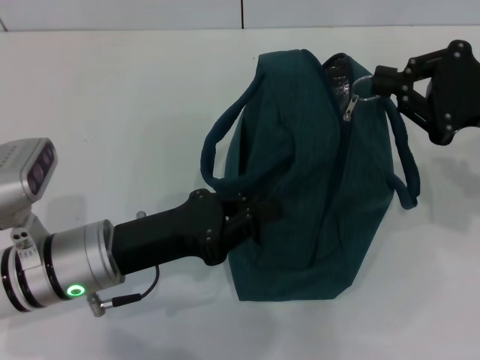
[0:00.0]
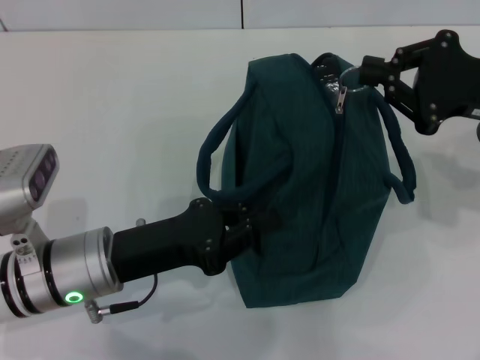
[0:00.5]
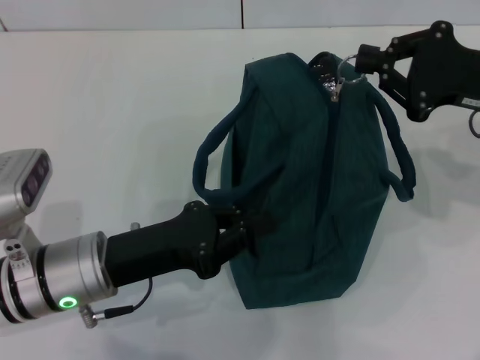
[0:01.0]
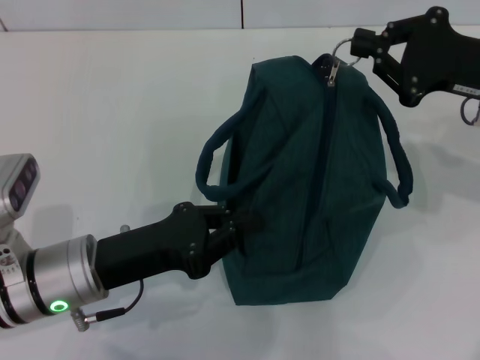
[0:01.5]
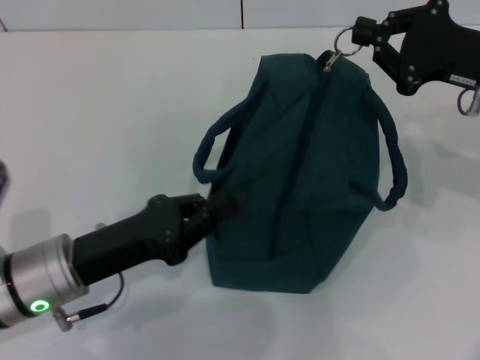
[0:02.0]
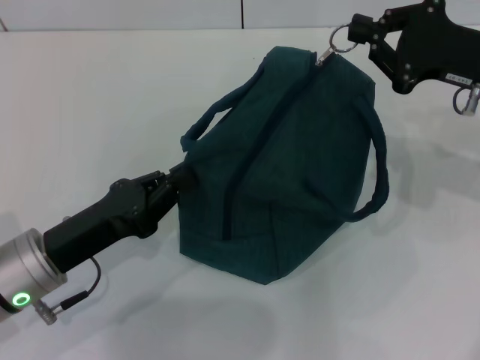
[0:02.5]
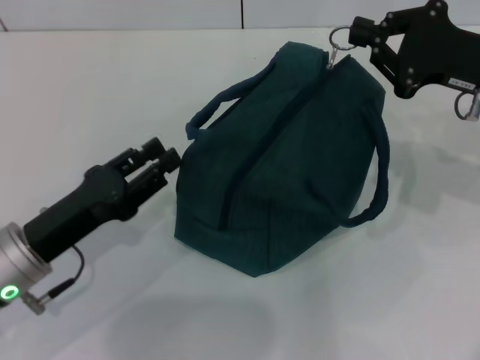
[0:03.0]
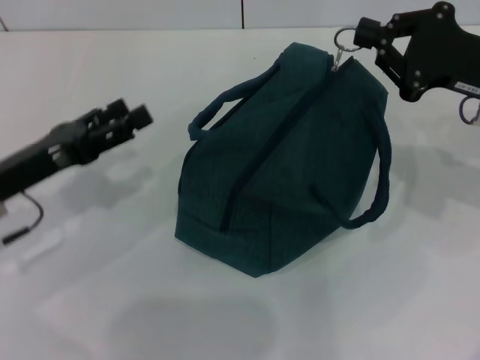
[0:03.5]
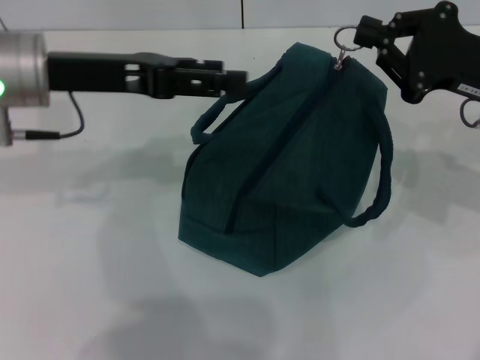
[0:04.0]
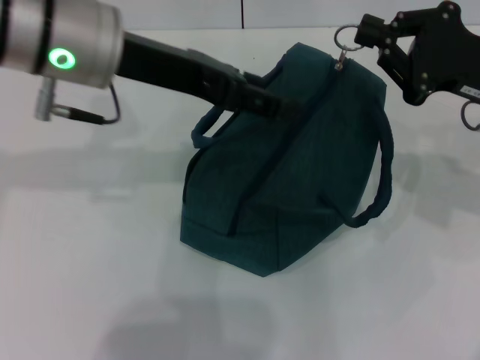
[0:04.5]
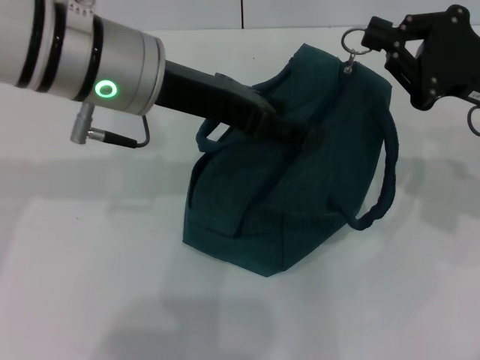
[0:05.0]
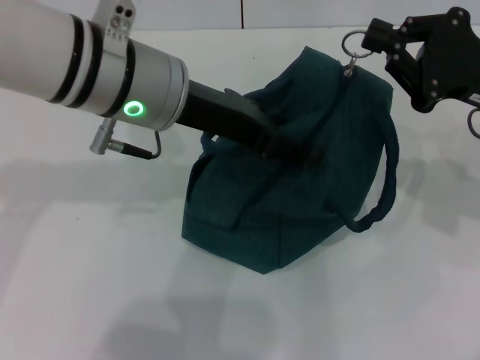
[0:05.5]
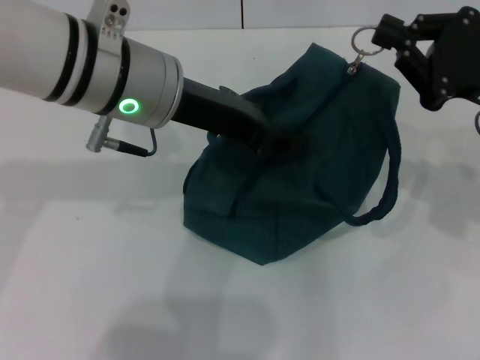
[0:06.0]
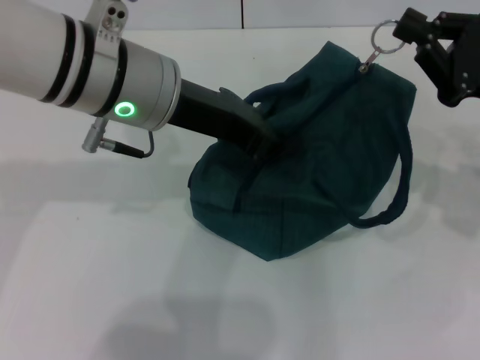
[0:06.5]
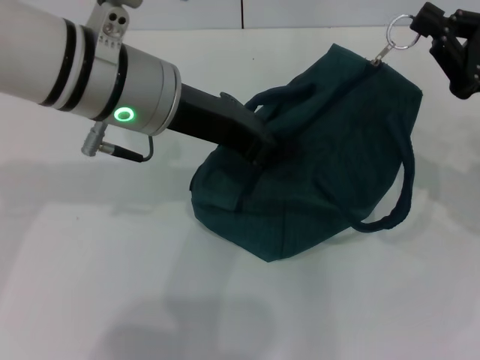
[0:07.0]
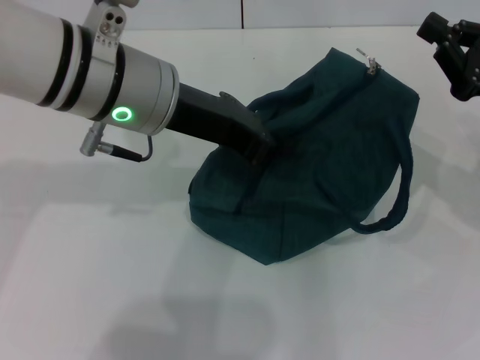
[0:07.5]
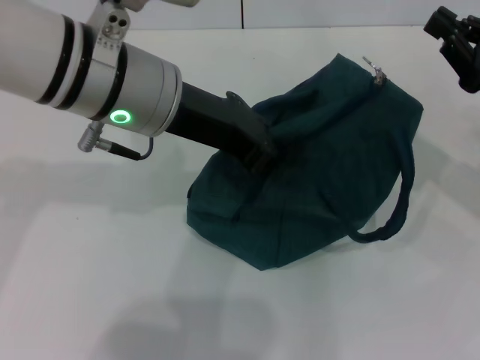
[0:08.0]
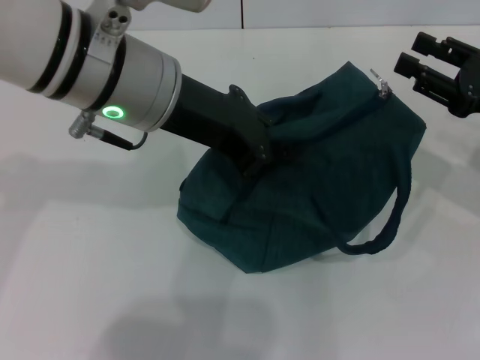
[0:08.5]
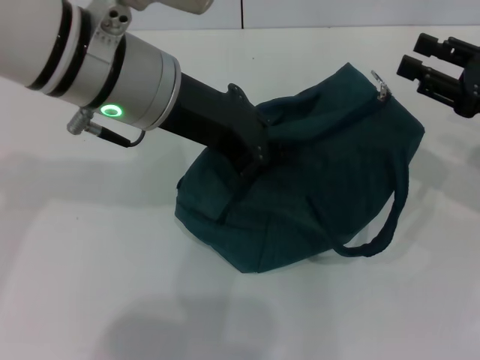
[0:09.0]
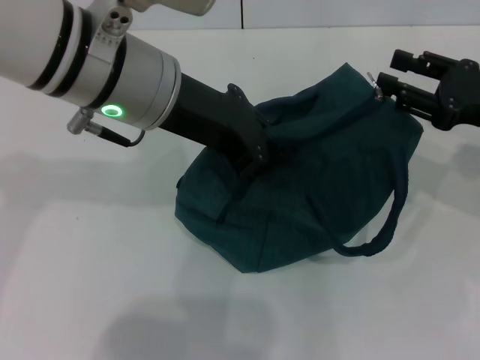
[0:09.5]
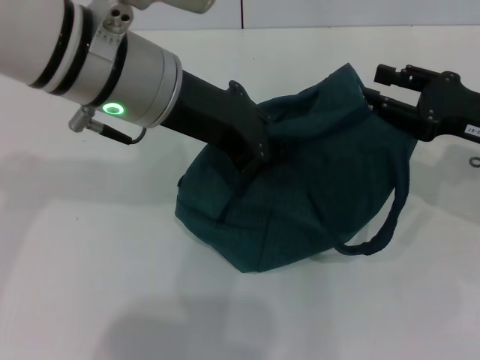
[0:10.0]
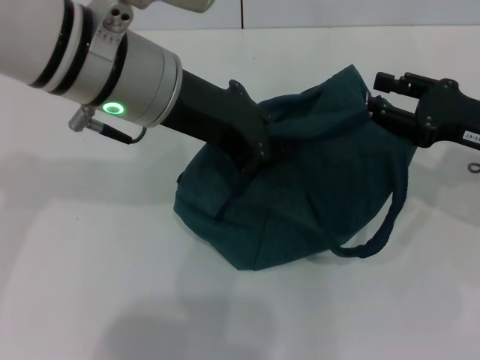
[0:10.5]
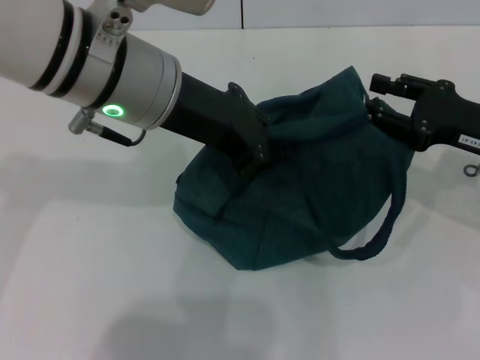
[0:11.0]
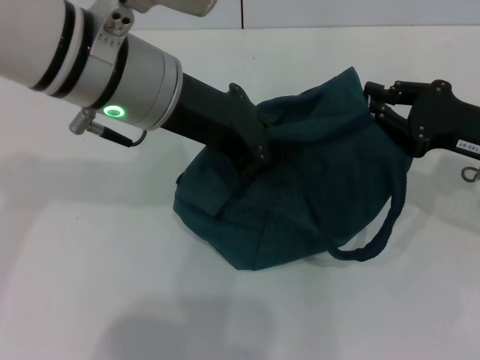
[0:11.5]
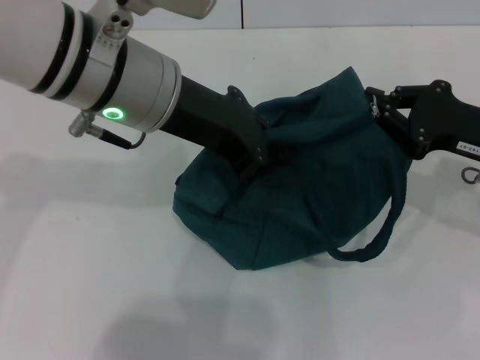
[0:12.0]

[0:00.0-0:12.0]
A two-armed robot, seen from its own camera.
0:02.0 to 0:04.0: The left gripper shifts some 20 cm upward and forward, and opens its fingers.
0:04.0 to 0:06.0: The left gripper moves to the right, roughly 10 cm.
0:06.0 to 0:08.0: The left gripper closes its fingers.
0:08.0 to 0:10.0: The right gripper opens.
0:10.0 to 0:12.0: The right gripper closes.

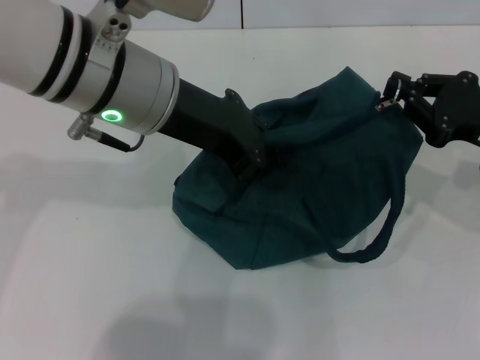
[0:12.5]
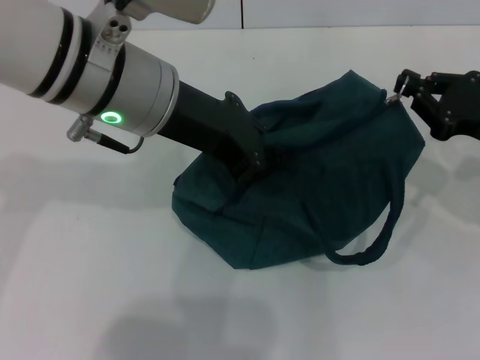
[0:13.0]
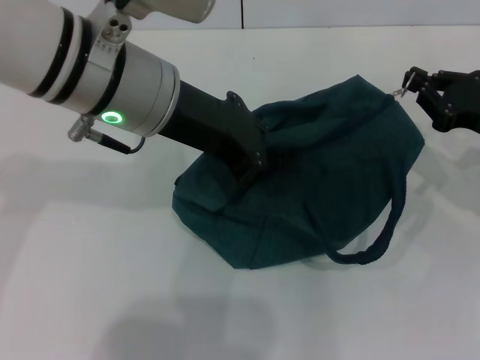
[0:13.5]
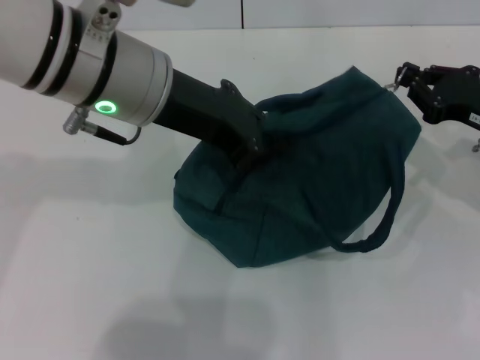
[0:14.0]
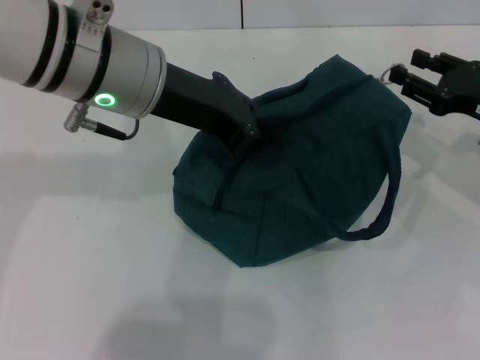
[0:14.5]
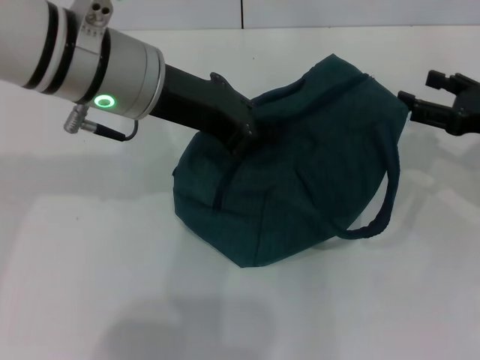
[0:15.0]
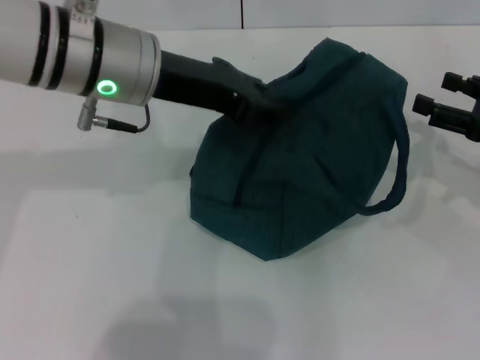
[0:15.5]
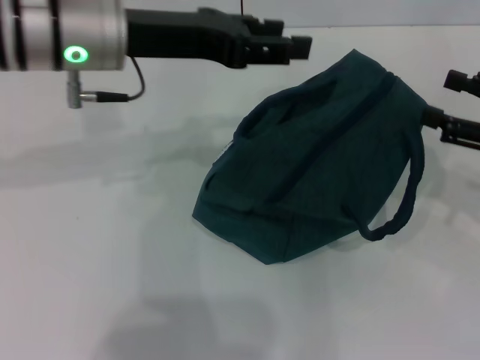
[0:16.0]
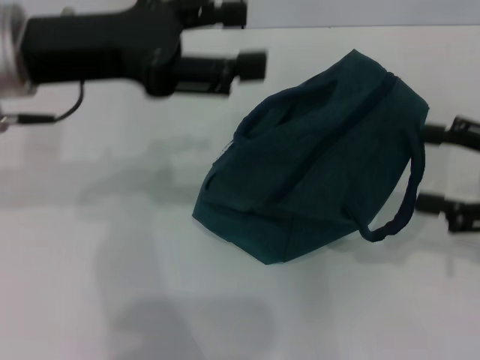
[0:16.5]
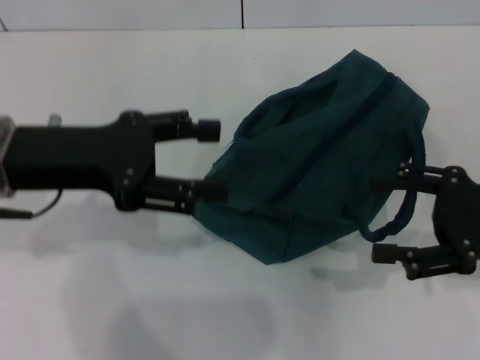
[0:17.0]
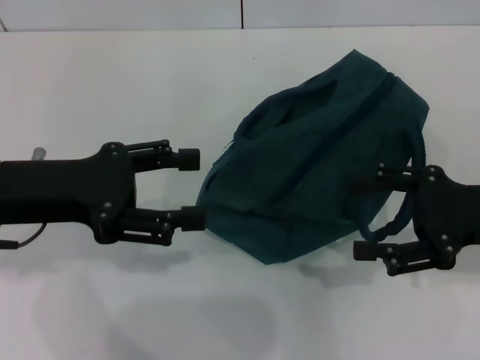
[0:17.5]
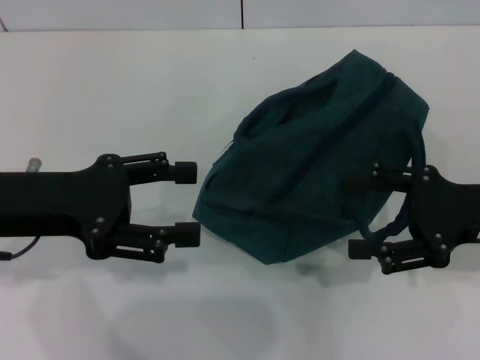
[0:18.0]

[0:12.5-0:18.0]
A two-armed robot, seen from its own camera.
Step, 0:12.5 to 0:14.5: Zip up the lunch bag with your right hand.
0:12.5 to 0:14.5: The grippers stay close to where they were, moving slightly.
0:14.5 to 0:16.0: The right gripper is displaced backward by about 5 cm, and opens up. Meanwhile the left gripper opens.
0:16.0 to 0:18.0: The right gripper heads to the left, covering roughly 5 cm; the left gripper travels backward, to the left and downward by approximately 15 cm, and opens up.
